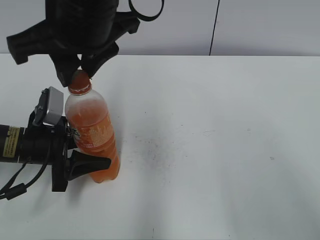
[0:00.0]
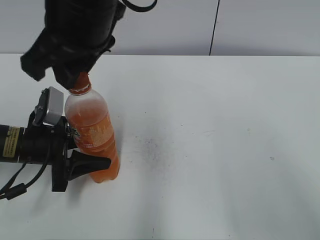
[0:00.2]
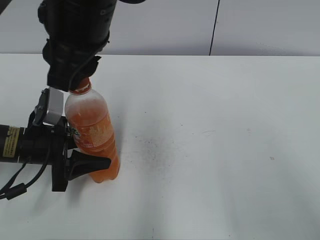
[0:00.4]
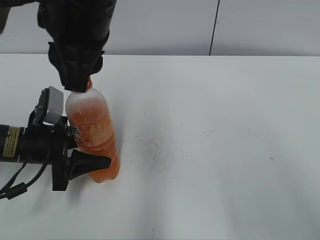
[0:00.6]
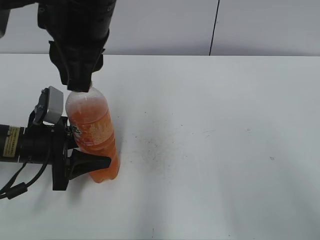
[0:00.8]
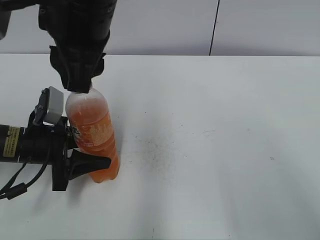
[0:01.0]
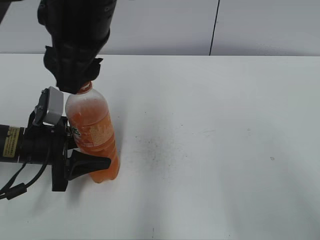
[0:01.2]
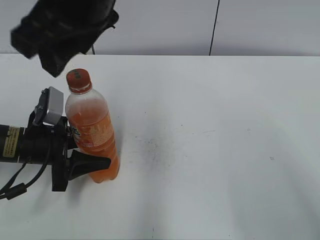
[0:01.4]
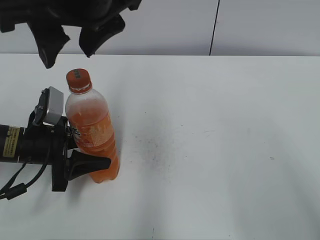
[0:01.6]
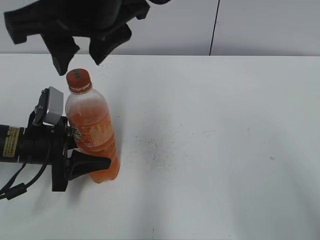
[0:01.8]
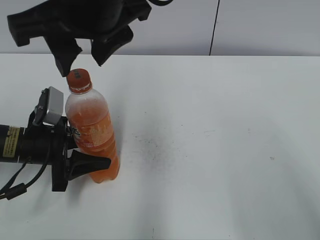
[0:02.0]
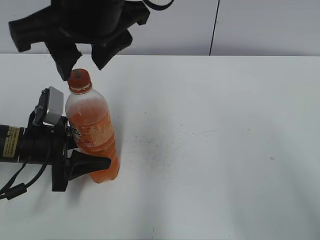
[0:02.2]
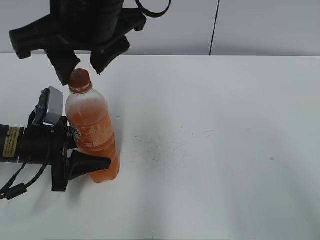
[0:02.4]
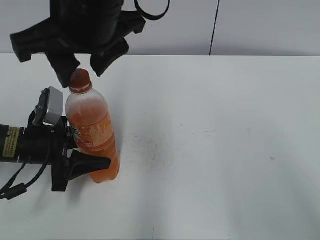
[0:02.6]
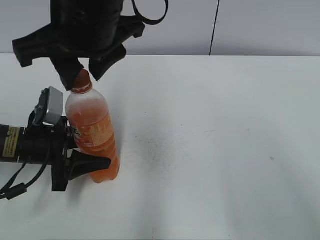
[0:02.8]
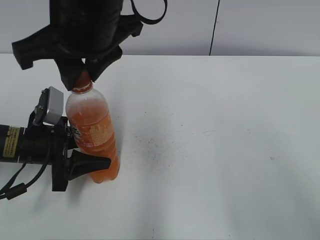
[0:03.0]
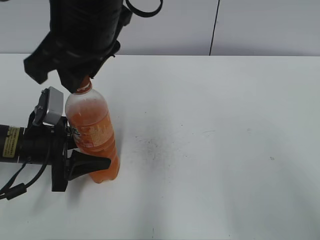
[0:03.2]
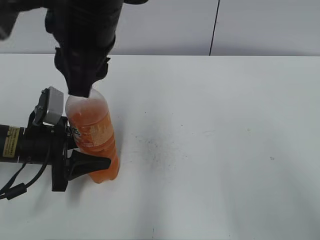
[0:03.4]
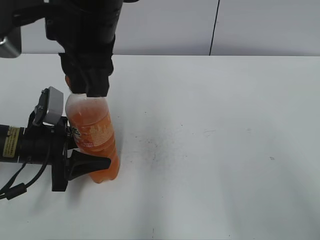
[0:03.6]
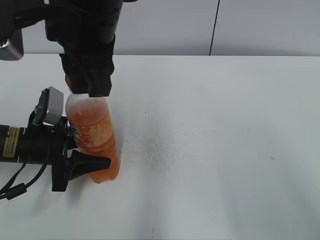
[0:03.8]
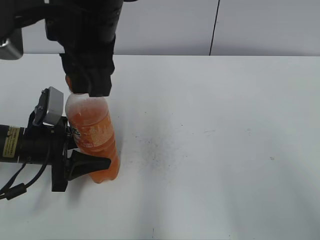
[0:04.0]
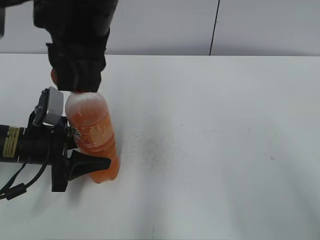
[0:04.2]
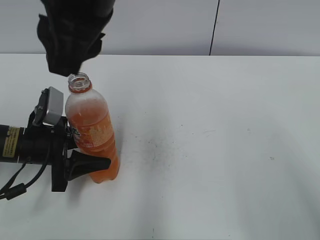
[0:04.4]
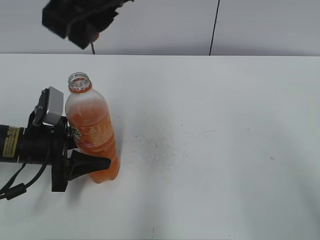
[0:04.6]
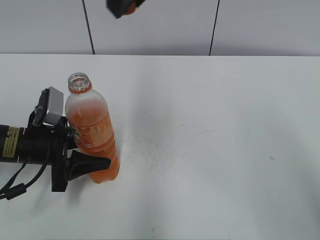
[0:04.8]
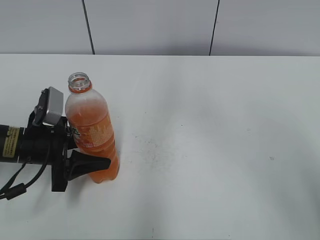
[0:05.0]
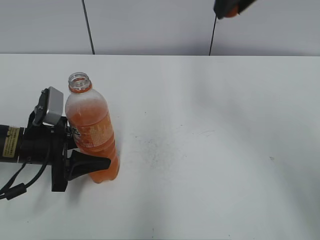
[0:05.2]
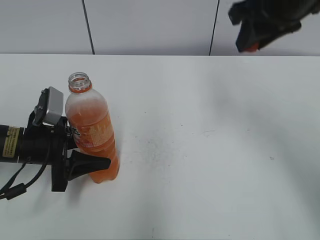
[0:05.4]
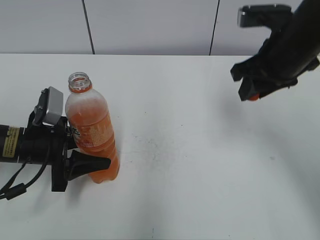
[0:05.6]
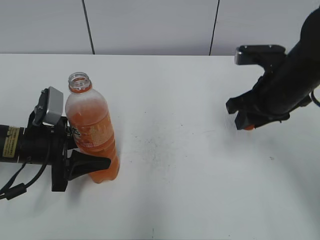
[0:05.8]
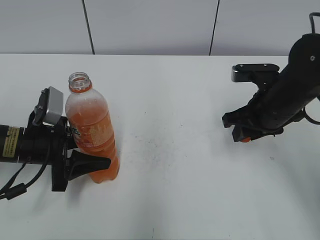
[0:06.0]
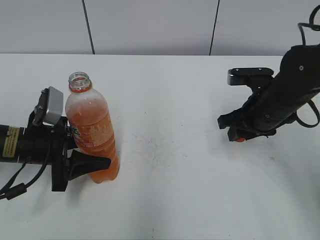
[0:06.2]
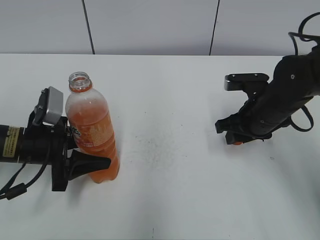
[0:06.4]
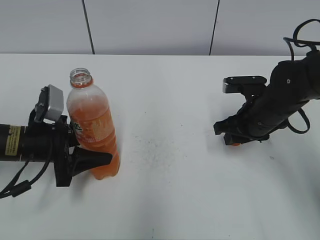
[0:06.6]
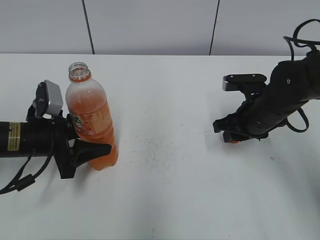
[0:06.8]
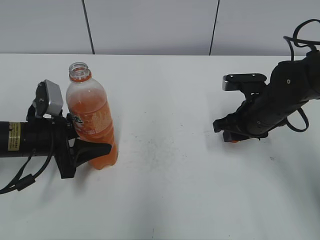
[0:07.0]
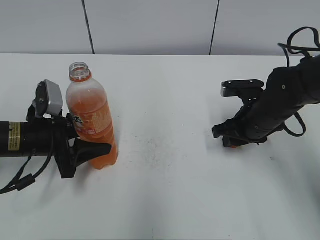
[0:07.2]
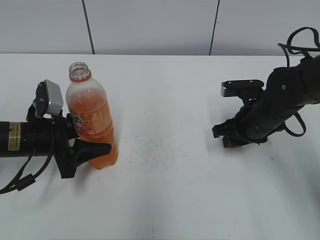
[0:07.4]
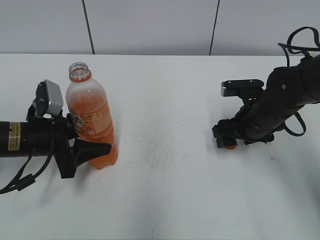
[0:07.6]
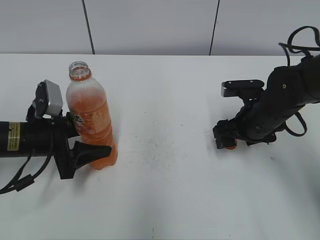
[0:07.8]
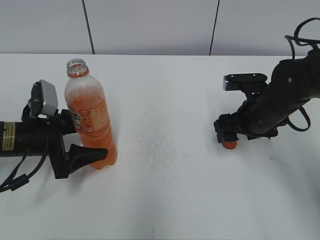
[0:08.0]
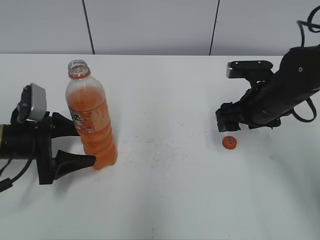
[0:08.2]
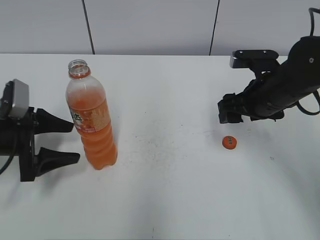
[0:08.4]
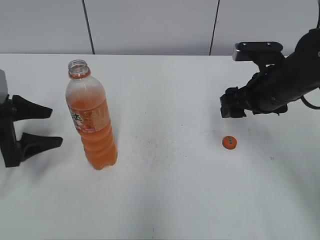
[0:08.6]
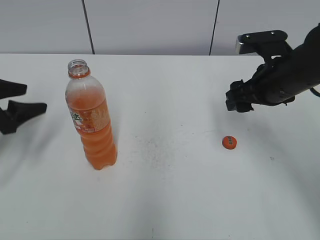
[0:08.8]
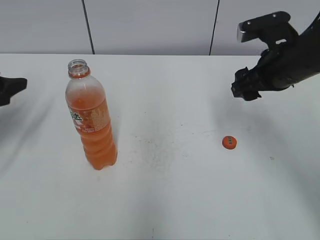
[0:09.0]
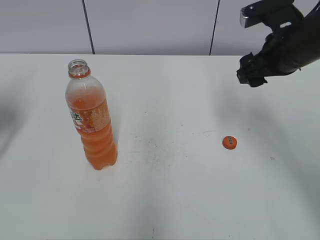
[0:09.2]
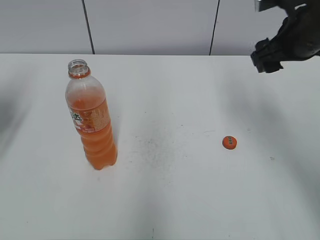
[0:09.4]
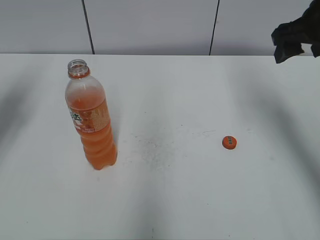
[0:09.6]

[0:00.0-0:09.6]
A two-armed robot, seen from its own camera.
Step, 0:00.0 to 0:04.2: Twist the bottle cap with the right hand.
Step, 0:04.4 to 0:07.6: Place the bottle cap on the right.
Step, 0:07.8 to 0:08.0: Place the Mirinda with the left hand.
0:00.0 to 0:01.6: The right gripper opens its fingers.
0:01.6 to 0:03.2: The right gripper closes.
0:03.2 to 0:04.8: The right gripper is displaced upward and to the right by roughly 10 cm.
0:04.8 to 0:06.4: The right gripper is displaced downward and to the right by roughly 35 cm.
0:06.4 to 0:08.0: The right gripper opens, while the left gripper opens its fingers.
0:08.0 to 0:09.6: The right gripper shifts roughly 15 cm upward. The left gripper goes some 20 cm upward and to the left, and closes up.

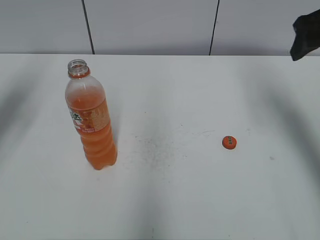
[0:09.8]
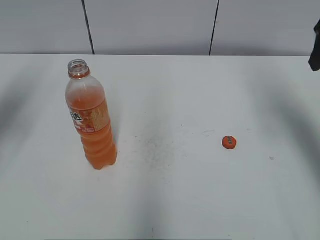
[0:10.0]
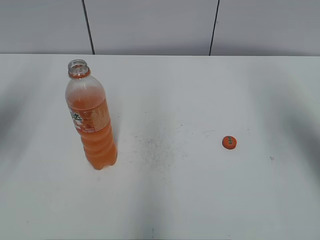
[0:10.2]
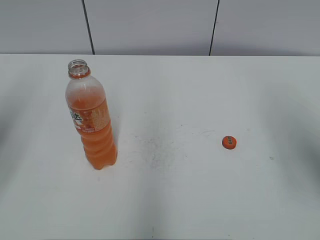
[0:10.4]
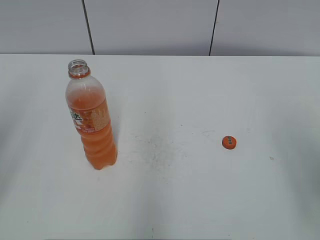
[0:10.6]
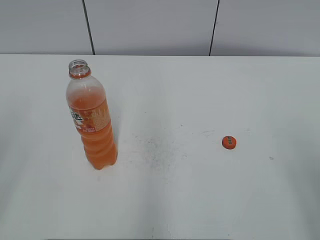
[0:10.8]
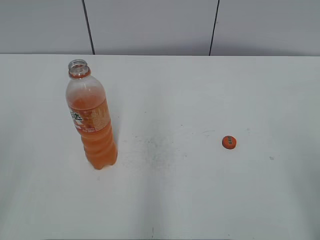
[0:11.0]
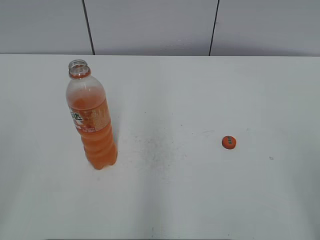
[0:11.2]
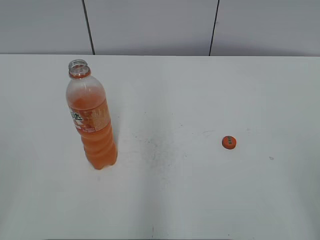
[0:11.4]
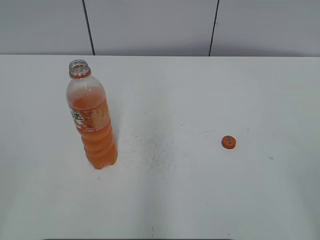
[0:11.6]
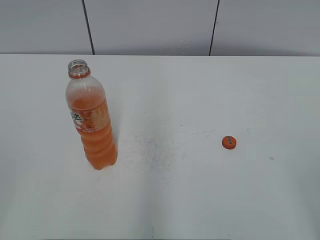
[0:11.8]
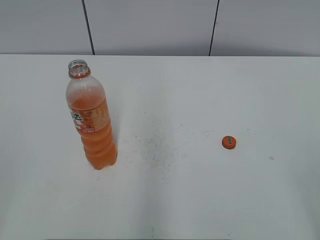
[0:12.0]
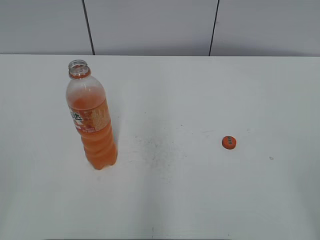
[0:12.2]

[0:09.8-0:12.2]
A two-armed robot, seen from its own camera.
0:09.8 to 0:11.0: Both grippers move backward, approximately 30 cm.

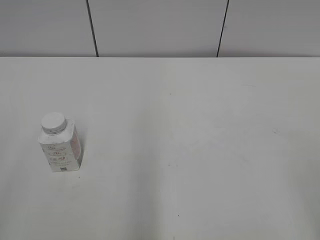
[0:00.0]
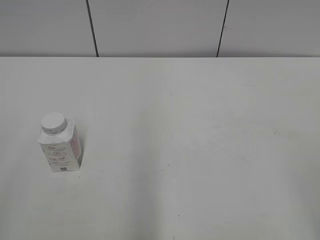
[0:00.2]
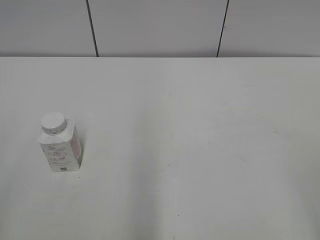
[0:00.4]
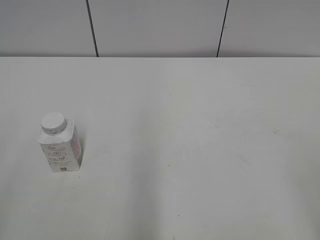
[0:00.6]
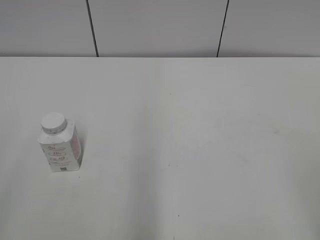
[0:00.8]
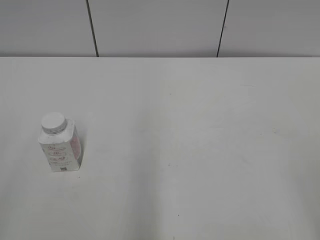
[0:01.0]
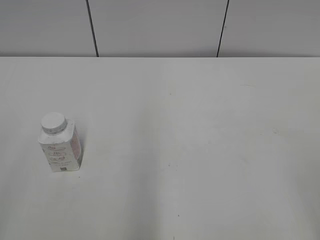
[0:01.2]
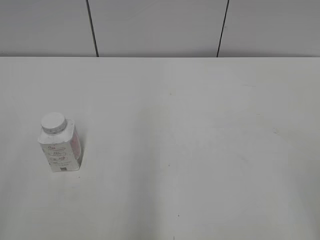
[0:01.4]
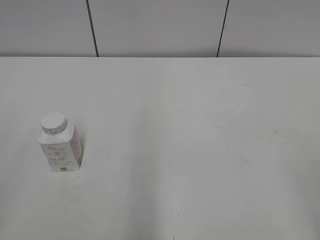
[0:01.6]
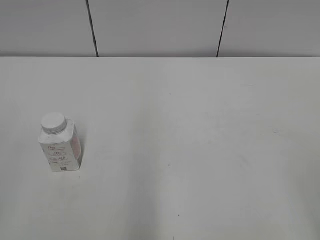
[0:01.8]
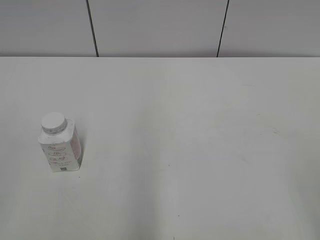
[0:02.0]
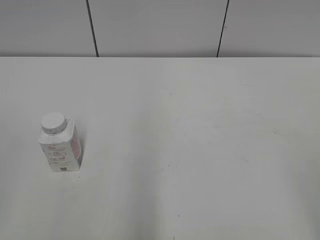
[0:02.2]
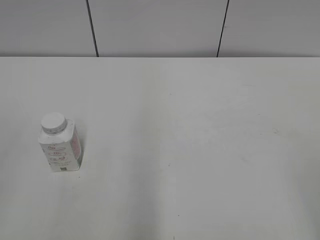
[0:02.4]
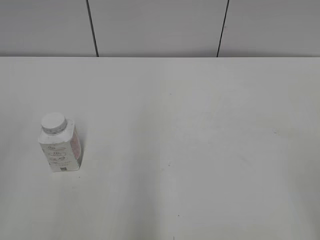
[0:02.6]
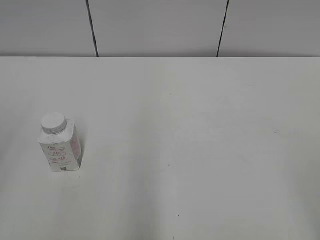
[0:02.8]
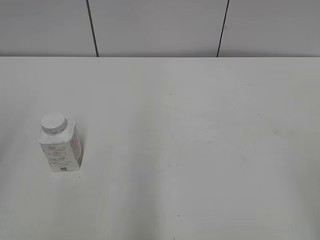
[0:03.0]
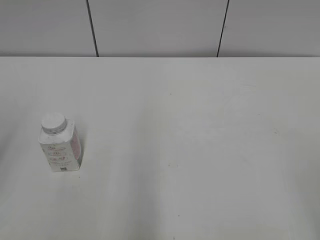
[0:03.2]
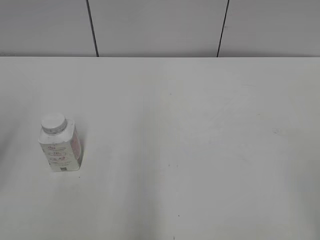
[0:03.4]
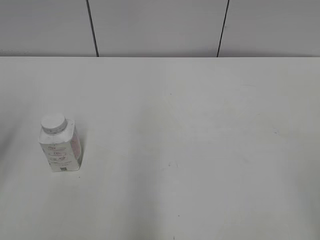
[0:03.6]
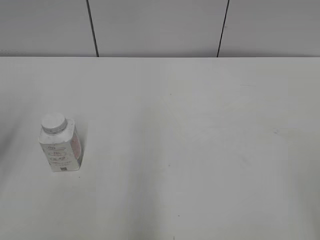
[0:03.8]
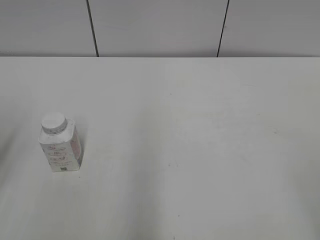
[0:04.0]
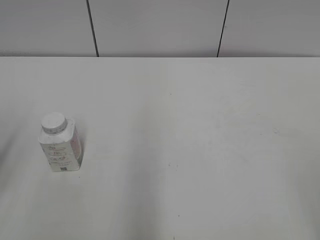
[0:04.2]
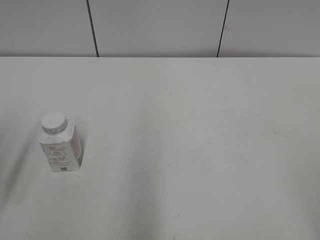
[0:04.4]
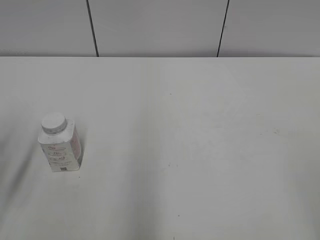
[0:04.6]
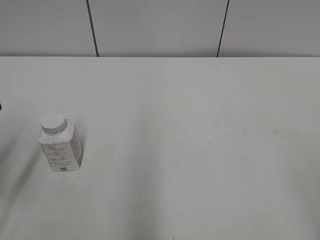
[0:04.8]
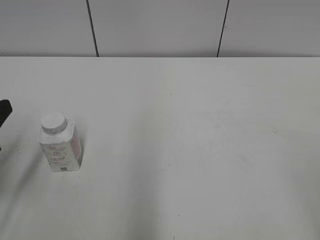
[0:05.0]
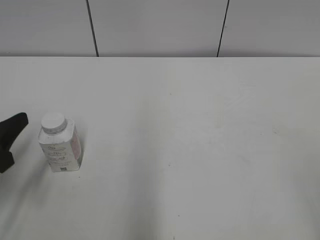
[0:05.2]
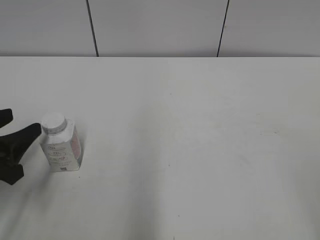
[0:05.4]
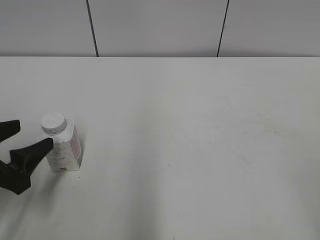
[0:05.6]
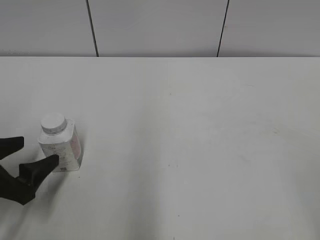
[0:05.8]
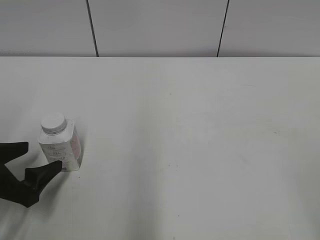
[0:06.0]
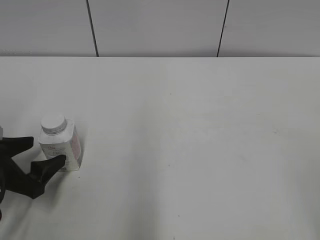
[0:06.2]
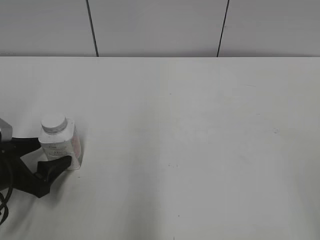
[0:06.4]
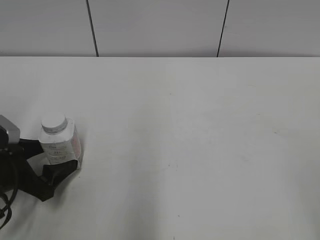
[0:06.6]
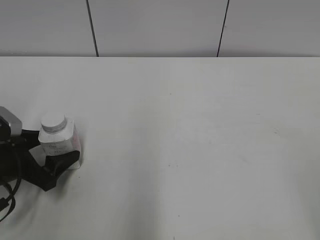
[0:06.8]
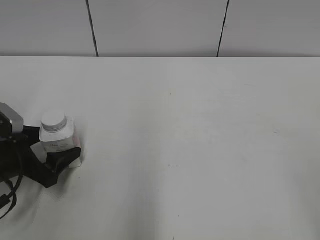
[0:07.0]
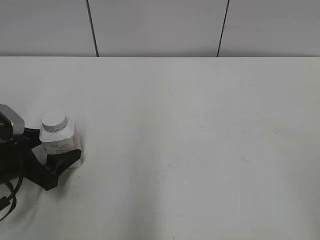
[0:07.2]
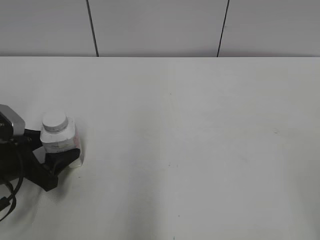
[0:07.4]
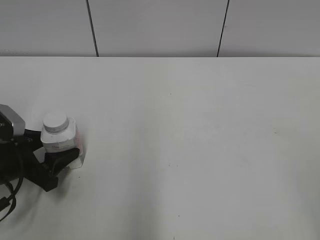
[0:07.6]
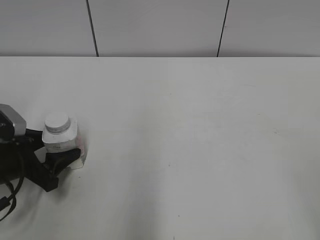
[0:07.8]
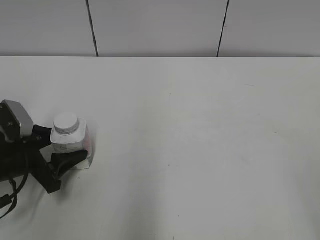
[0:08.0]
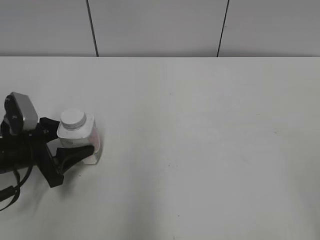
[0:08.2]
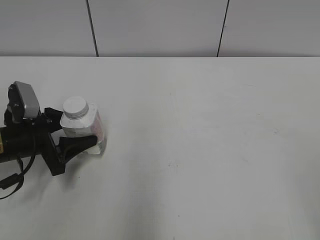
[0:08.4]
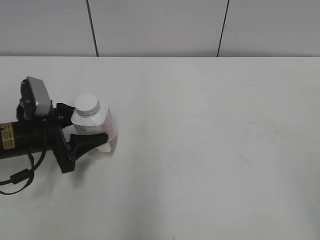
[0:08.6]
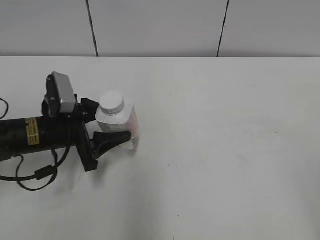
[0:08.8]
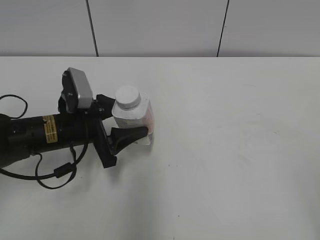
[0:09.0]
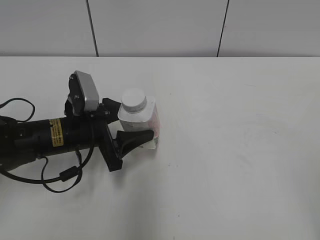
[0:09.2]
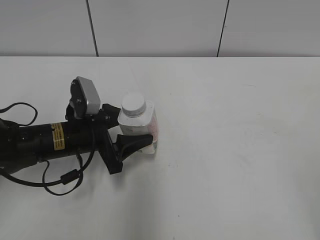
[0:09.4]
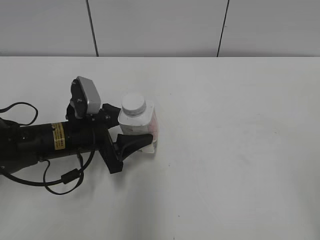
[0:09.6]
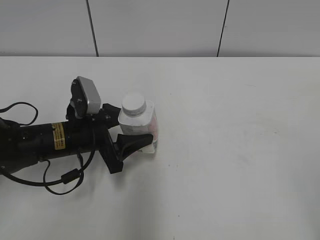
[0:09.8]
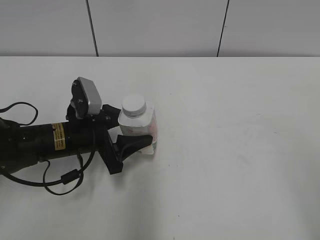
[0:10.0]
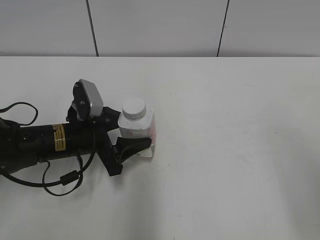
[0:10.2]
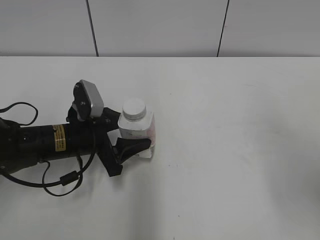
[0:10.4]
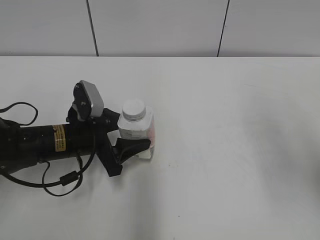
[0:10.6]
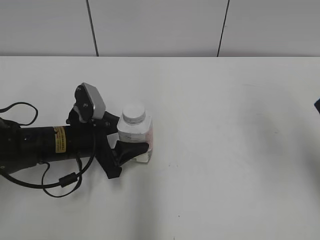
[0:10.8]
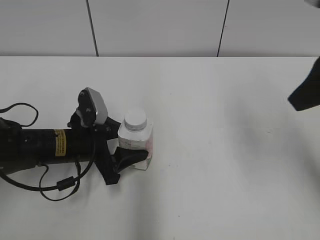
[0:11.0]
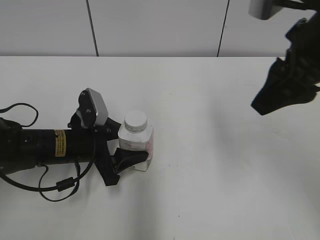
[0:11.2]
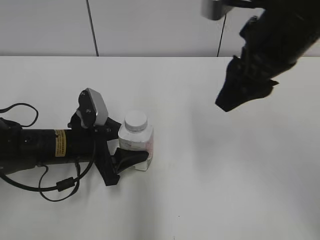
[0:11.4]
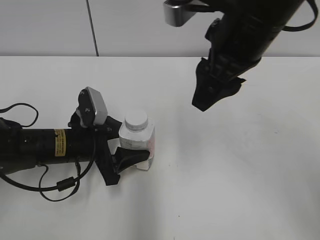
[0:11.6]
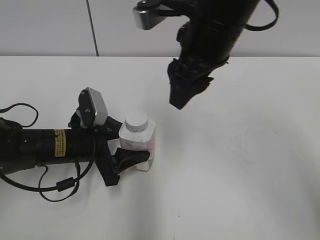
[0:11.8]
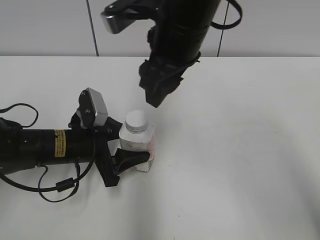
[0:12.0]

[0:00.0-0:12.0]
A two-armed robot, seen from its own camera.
Step, 0:00.0 to 0:07.6: Grab the Yili Changqing with the left hand.
Step, 0:07.8 to 0:11.4: Move the Yili Changqing from left to right.
0:04.4 to 0:06.0: The left gripper is displaced downward by roughly 10 cm, and opens up.
0:06.0 to 0:07.6: The left gripper moves forward, some 5 cm, and closes up.
0:07.6 to 0:09.0: The left gripper shifts approximately 10 cm to the right and forward.
0:09.0 to 0:10.4: The right gripper travels forward by about 10 cm.
0:10.4 to 0:12.0: The right gripper shifts about 30 cm to the left and forward, and closes up.
